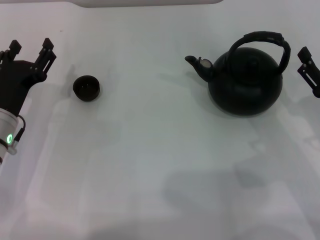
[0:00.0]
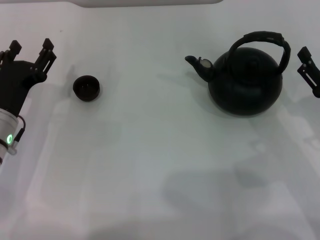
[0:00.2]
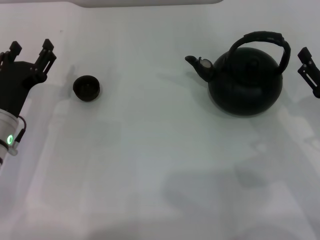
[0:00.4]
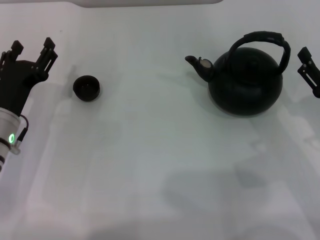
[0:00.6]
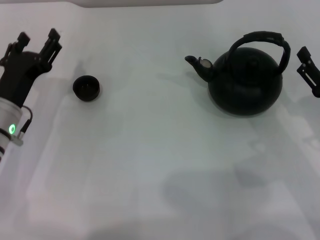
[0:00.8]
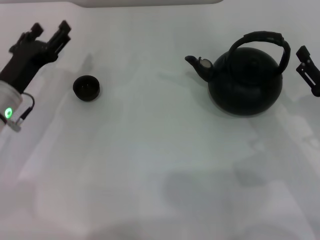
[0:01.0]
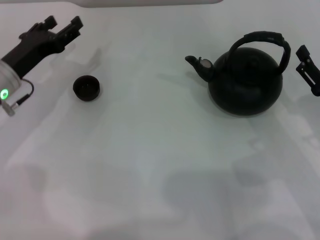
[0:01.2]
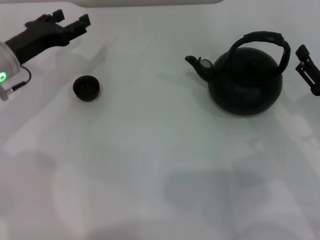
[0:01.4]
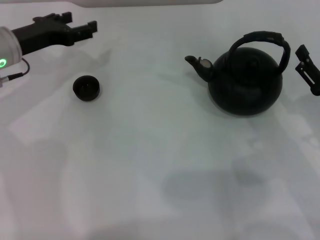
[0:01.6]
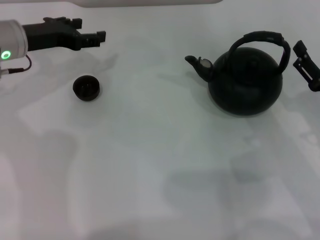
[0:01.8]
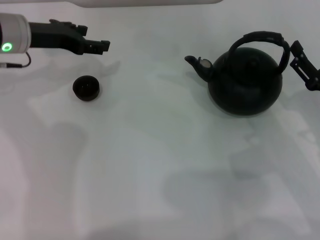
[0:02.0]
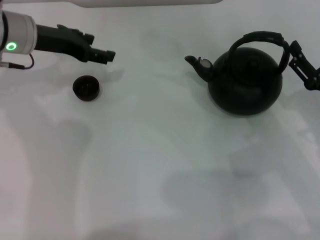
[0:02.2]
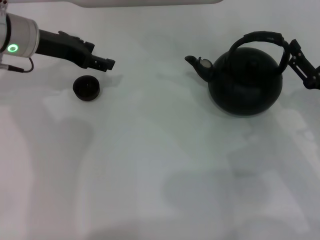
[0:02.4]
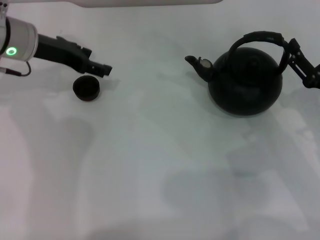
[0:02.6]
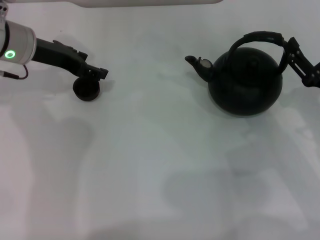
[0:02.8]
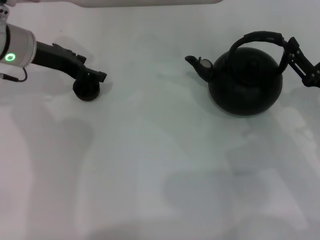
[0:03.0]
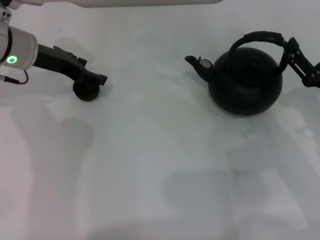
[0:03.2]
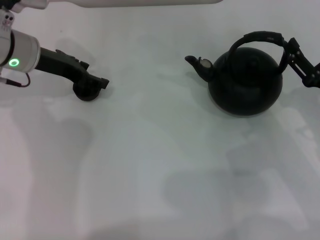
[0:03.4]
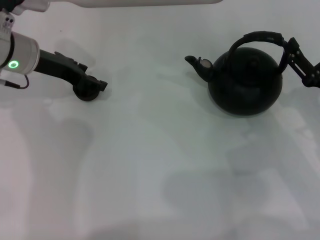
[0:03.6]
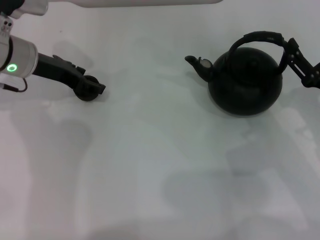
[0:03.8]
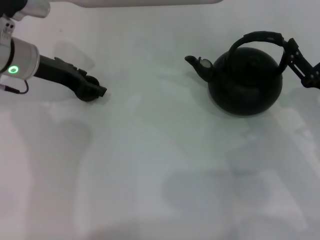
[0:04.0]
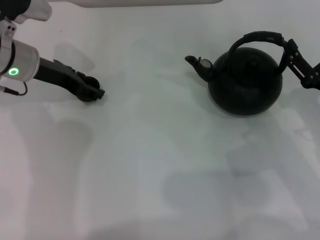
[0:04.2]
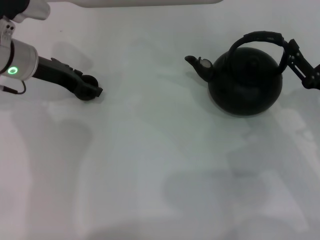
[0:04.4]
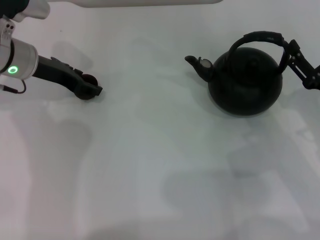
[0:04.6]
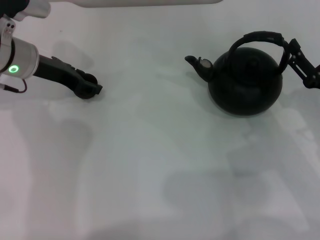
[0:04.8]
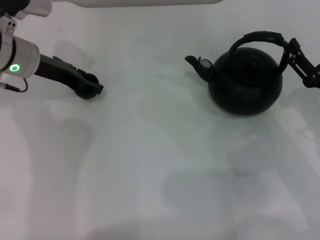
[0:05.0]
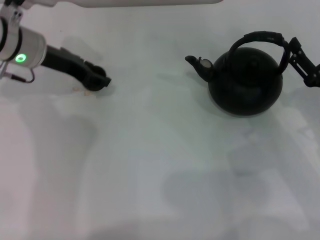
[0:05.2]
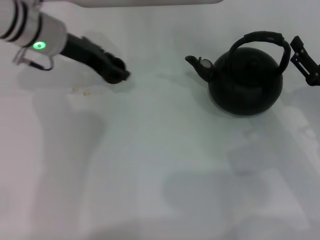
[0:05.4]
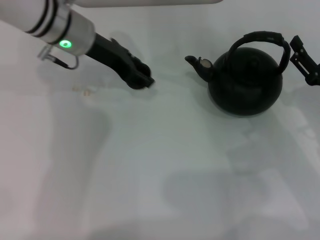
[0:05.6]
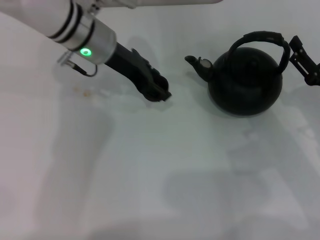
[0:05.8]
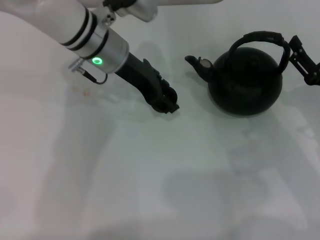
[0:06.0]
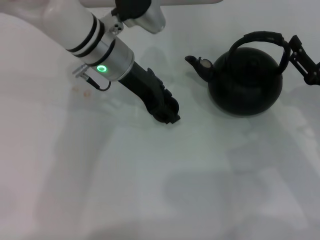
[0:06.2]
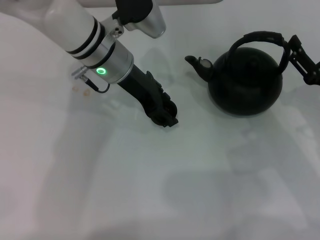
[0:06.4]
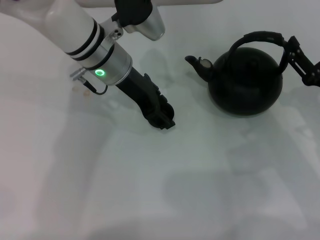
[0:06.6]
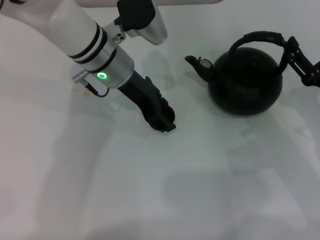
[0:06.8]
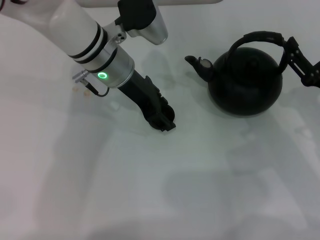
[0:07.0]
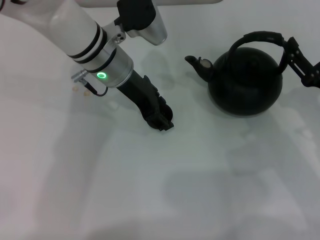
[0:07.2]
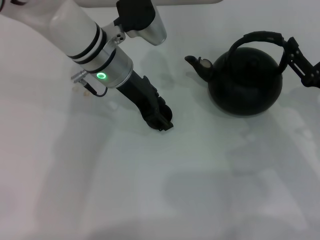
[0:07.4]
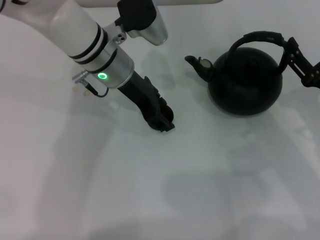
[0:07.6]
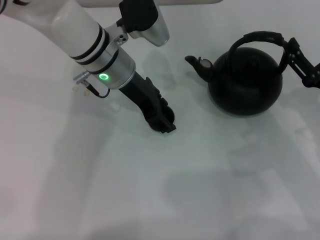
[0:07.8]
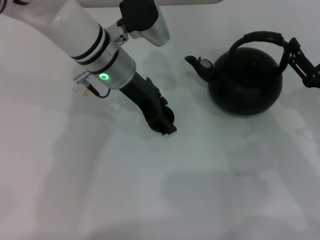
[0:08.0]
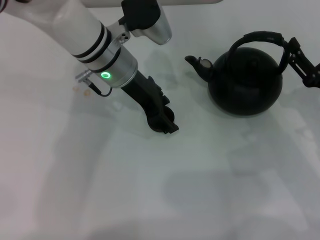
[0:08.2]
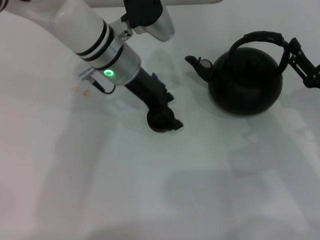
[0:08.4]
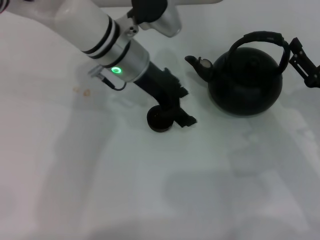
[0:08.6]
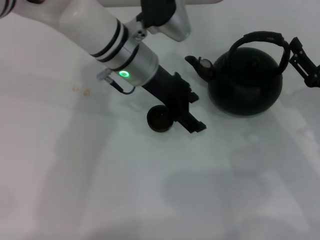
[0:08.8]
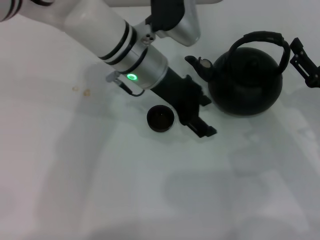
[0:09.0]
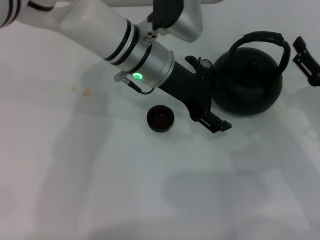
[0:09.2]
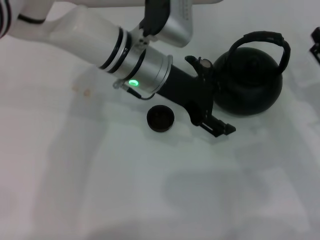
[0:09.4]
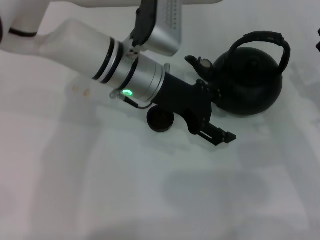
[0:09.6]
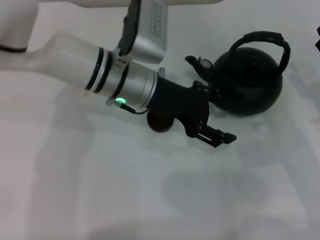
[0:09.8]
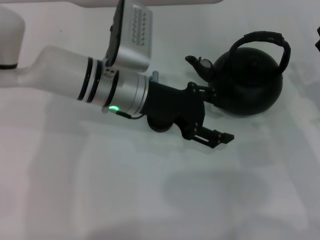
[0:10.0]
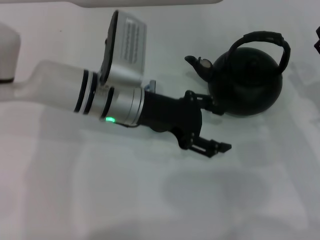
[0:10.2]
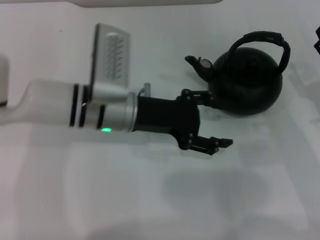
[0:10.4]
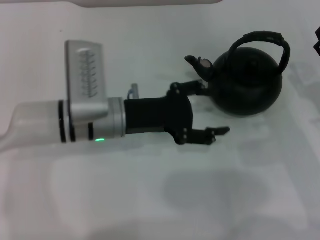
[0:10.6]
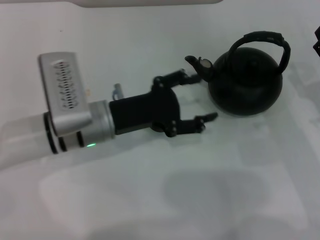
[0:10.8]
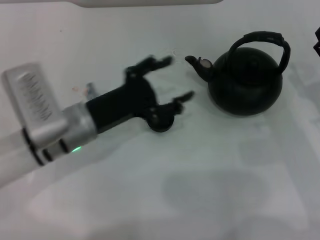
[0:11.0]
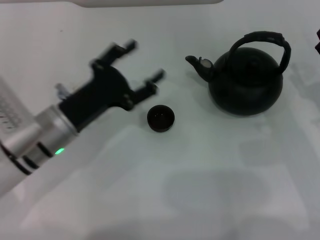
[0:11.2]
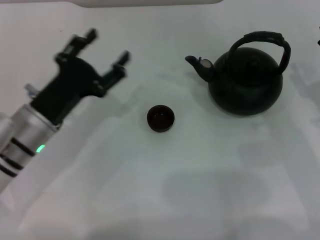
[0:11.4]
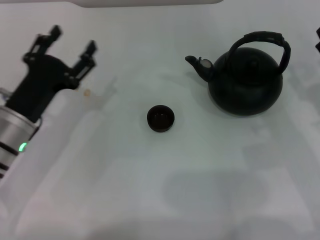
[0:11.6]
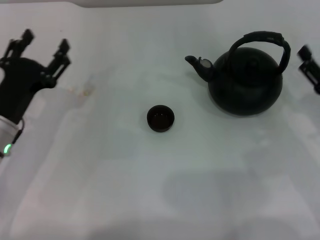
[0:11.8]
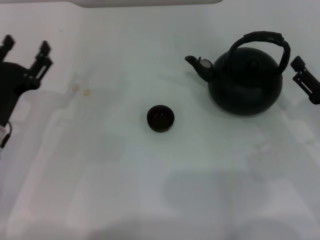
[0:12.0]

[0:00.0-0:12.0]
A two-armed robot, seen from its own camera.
Task of the whole recording: Grasp the handle of the teapot with one hand and pour tea into the teacup.
Step, 0:00.0 to 0:05.2: Pick up the teacup with the left gripper.
Step, 0:05.4 to 0:08.6: Place the teacup in the center of view with the left gripper.
0:00.0 to 0:01.6: The left gripper goes approximately 15 cm forward and upward.
0:03.0 to 0:04.4: The grippers stay close to where they were, moving slightly.
0:04.4 to 0:06.0: The left gripper heads to the right, covering roughly 15 cm, and closes.
0:06.0 to 0:07.6: The left gripper opens up.
0:07.6 to 0:09.0: The left gripper opens up.
0:09.0 to 0:10.4: The left gripper heads backward and to the left, covering approximately 10 cm.
0:10.4 to 0:12.0: The left gripper goes roughly 15 cm to the left and backward.

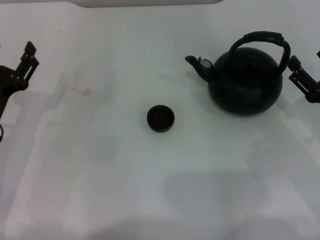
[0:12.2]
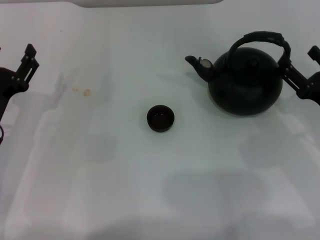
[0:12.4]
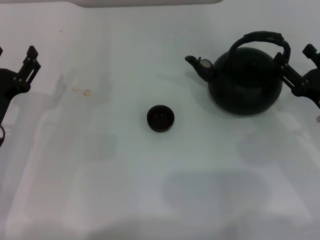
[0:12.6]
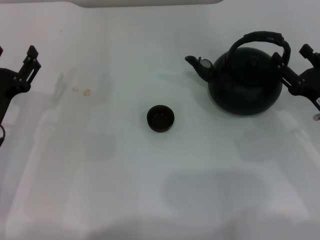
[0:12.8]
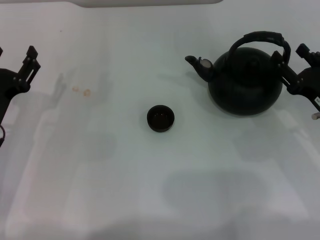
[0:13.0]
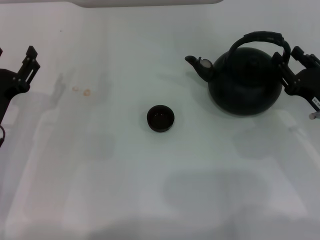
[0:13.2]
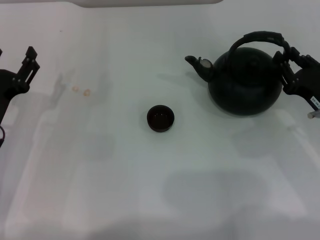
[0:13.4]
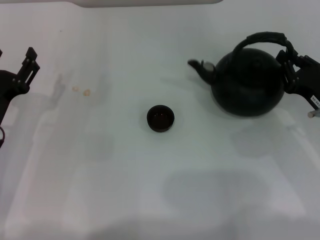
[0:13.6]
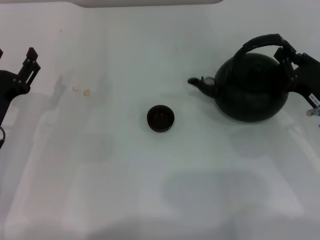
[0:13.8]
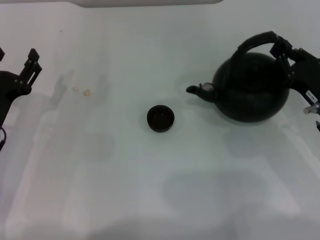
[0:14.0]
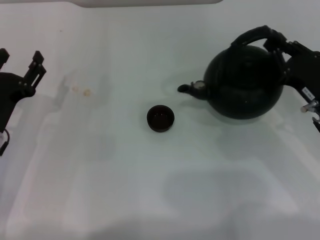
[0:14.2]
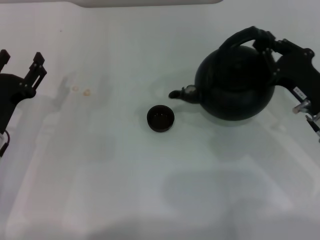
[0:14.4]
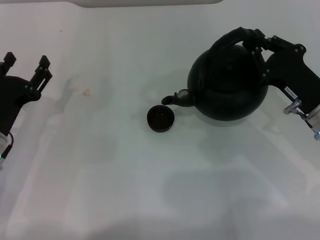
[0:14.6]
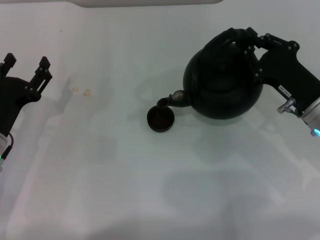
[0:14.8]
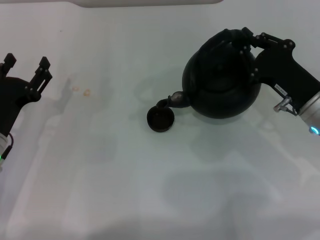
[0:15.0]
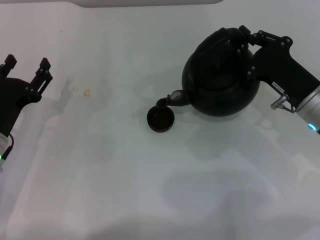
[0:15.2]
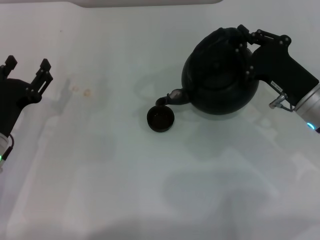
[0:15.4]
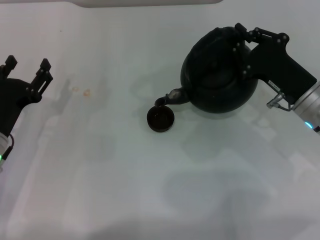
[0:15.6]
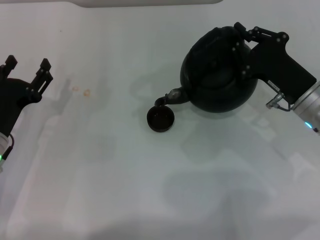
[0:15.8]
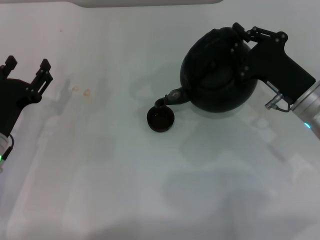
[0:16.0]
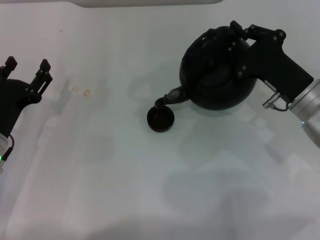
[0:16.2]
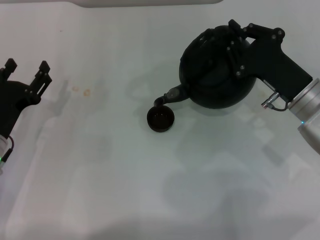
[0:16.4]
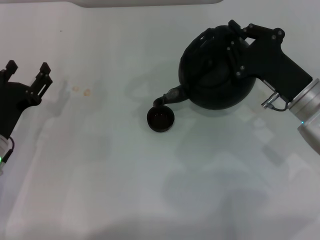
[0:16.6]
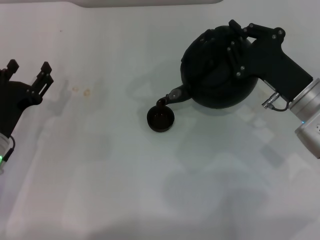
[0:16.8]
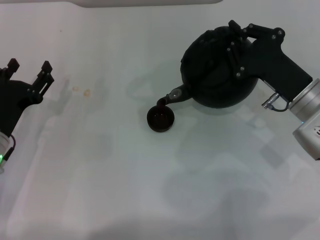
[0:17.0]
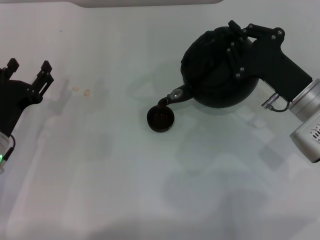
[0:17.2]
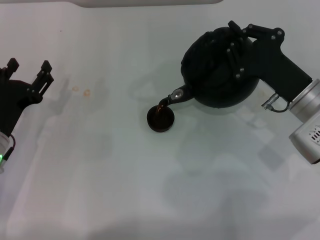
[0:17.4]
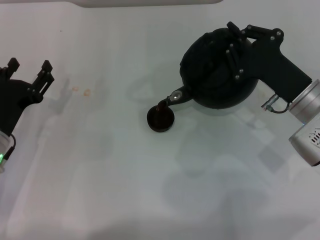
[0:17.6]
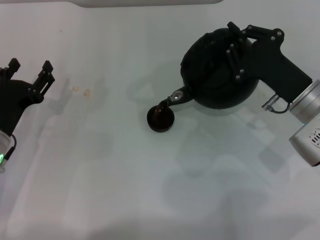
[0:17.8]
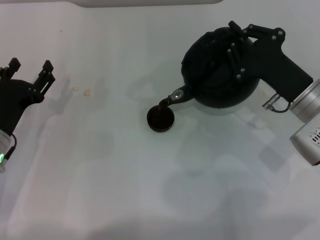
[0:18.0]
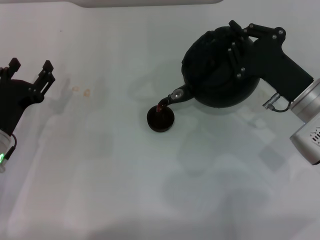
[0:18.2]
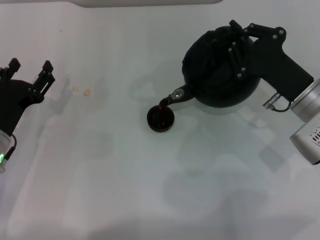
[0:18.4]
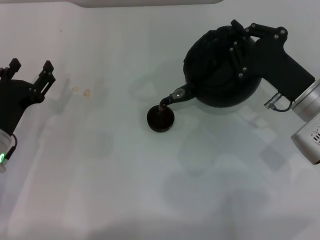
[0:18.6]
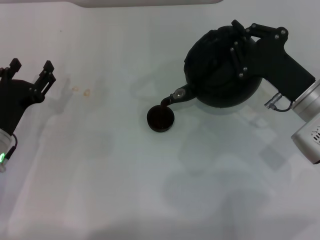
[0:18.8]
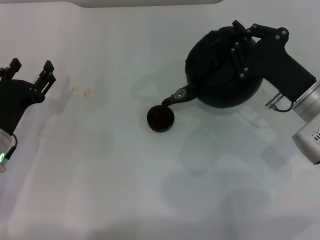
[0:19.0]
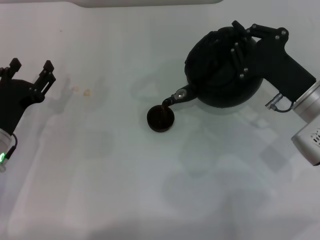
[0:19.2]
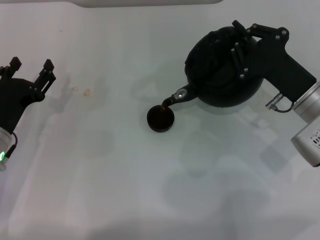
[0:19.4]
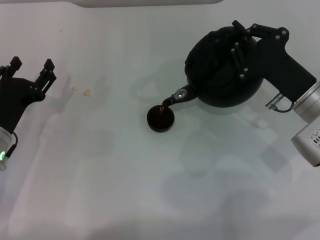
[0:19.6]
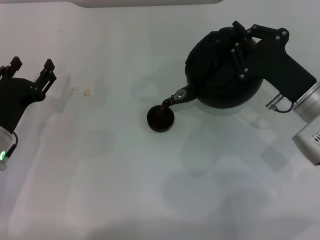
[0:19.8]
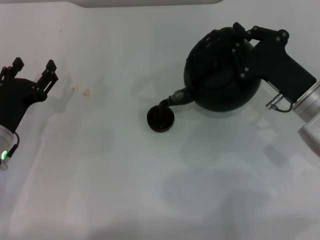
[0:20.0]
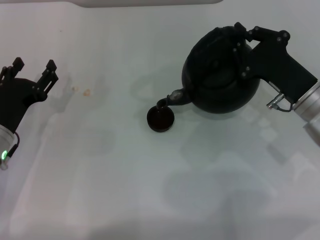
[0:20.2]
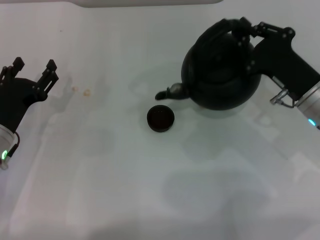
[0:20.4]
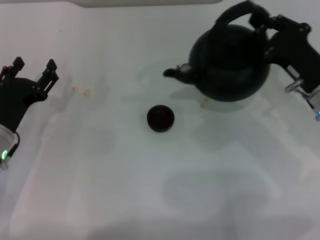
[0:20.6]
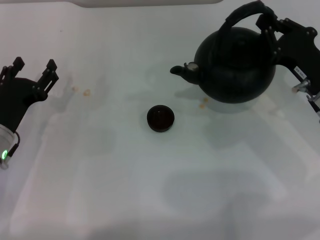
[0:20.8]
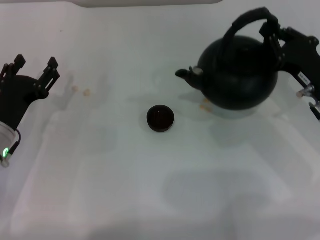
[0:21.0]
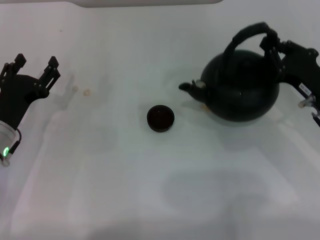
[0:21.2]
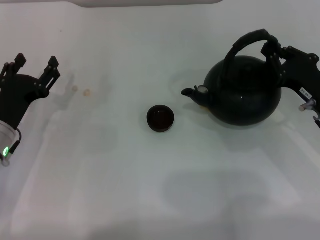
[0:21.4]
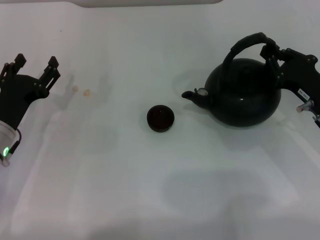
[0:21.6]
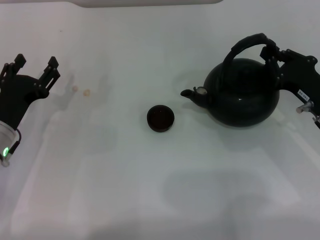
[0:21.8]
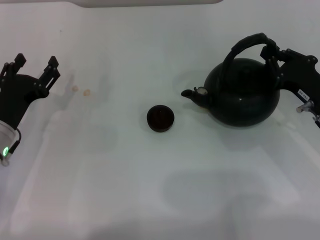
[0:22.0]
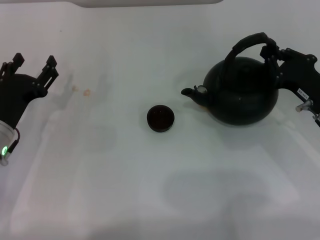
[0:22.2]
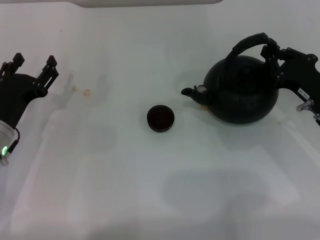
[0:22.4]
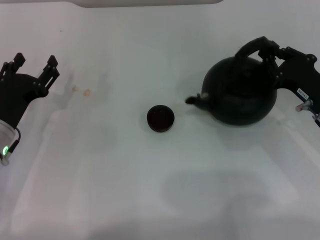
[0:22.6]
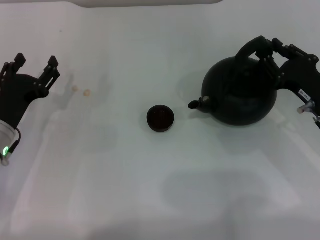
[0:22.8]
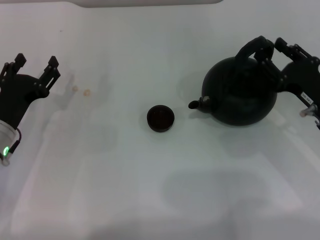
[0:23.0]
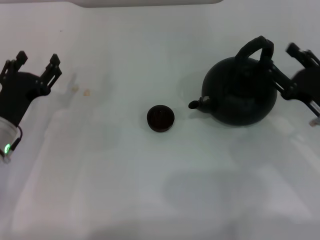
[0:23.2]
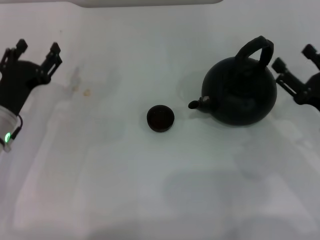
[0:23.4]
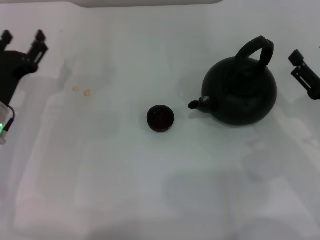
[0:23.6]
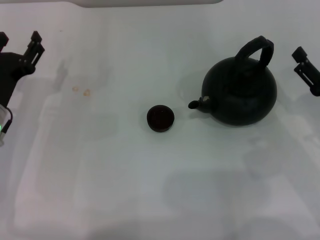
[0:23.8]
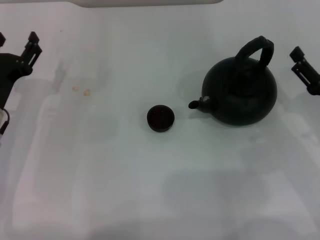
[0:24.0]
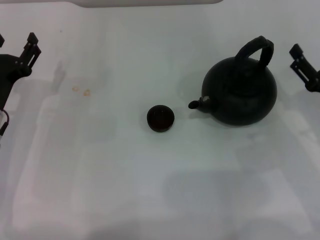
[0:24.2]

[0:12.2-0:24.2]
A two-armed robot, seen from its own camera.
Task of the whole recording: Grasp the handle of the teapot with one hand and pour tea into the teacup.
Step, 0:12.2 to 0:14.2: Pick up the teapot with the right gripper.
Step, 0:14.4 to 0:20.2: Pour tea into the teacup with the right gripper.
Step, 0:20.4 to 0:23.2: Put down the teapot with the right gripper.
0:12.2 to 0:13.8: The right gripper closes.
0:13.8 to 0:15.2: The right gripper moves some 5 cm.
0:15.2 to 0:16.6: The grippers move only a little.
0:16.6 to 0:18.2: The grippers stay close to where they were, moving slightly.
0:18.2 to 0:19.8: Neither gripper changes place.
0:21.2 to 0:22.6: There are only small adjustments of the grippers.
0:22.6 to 0:24.2: The right gripper opens up.
